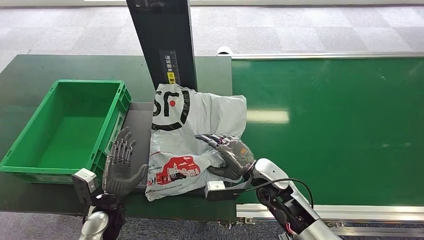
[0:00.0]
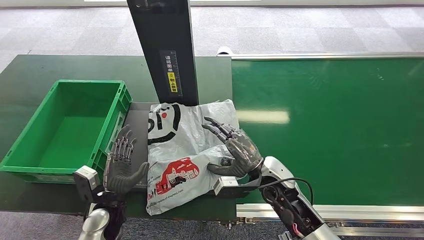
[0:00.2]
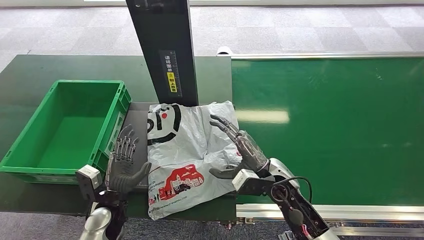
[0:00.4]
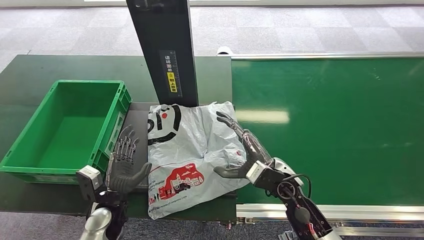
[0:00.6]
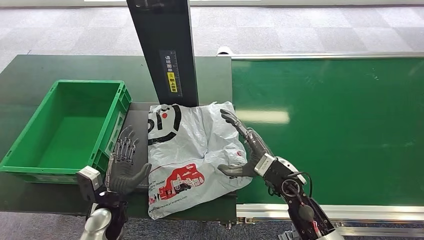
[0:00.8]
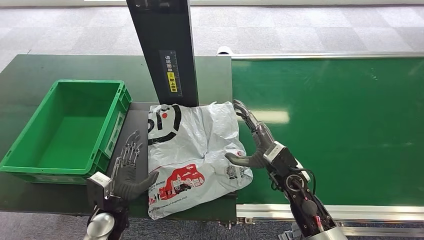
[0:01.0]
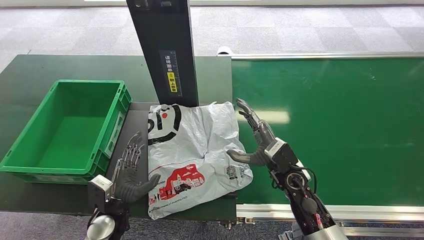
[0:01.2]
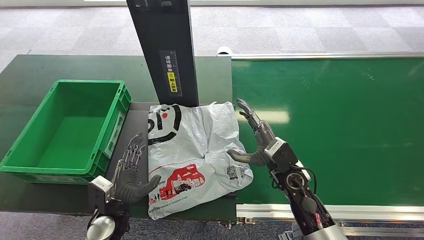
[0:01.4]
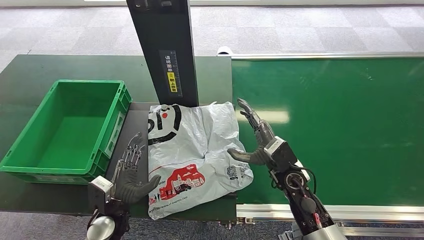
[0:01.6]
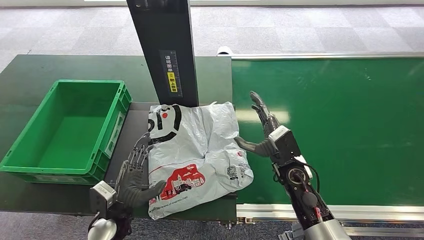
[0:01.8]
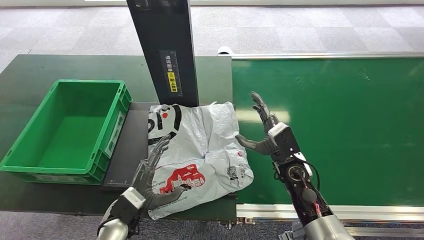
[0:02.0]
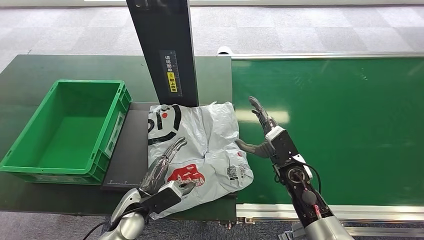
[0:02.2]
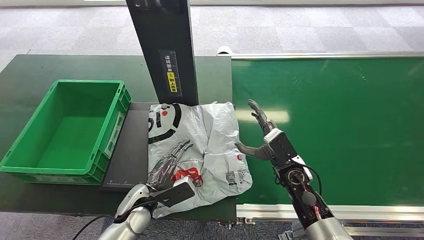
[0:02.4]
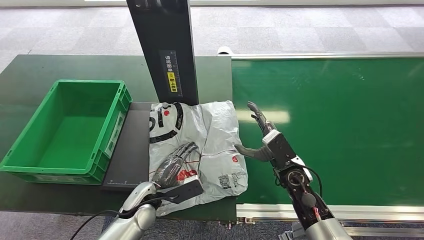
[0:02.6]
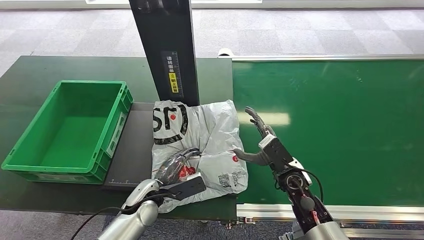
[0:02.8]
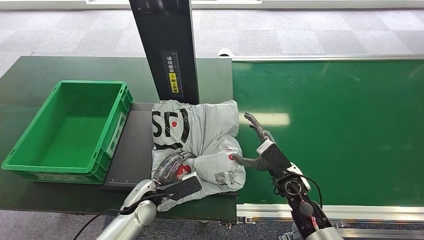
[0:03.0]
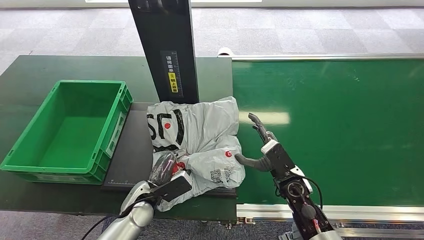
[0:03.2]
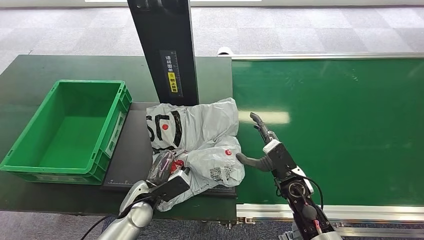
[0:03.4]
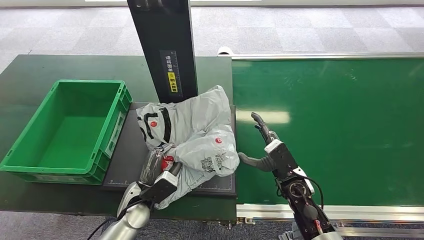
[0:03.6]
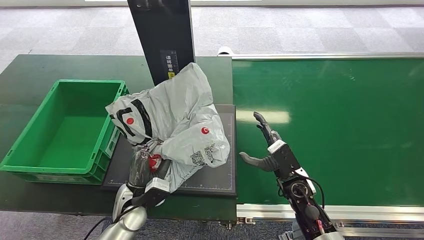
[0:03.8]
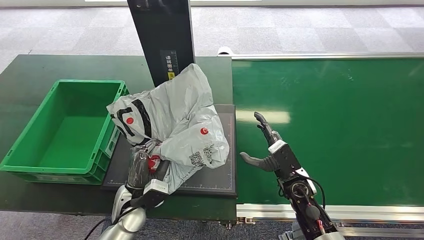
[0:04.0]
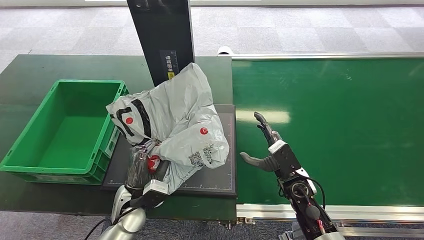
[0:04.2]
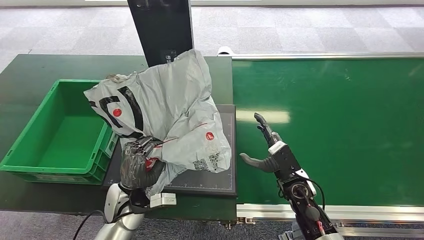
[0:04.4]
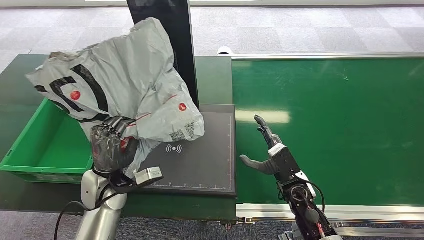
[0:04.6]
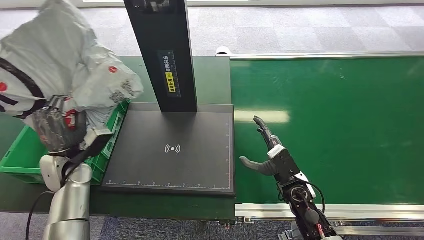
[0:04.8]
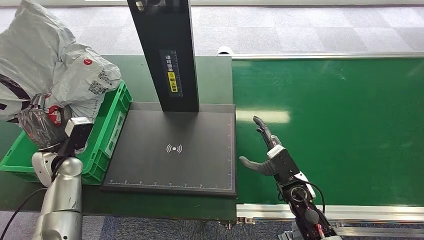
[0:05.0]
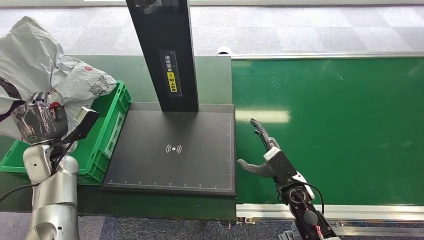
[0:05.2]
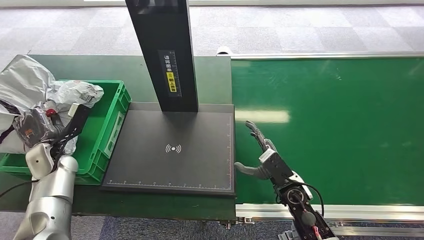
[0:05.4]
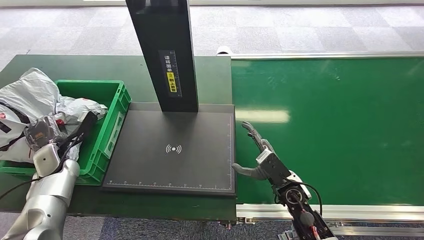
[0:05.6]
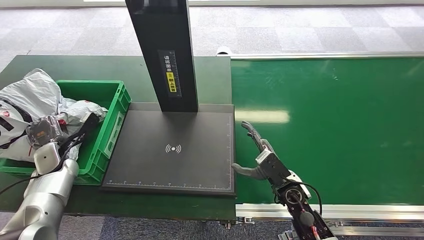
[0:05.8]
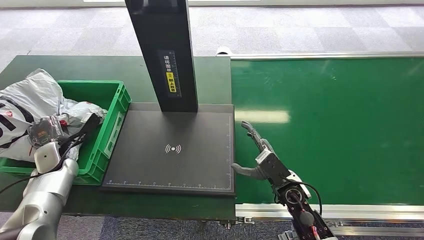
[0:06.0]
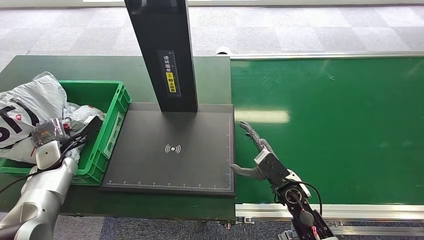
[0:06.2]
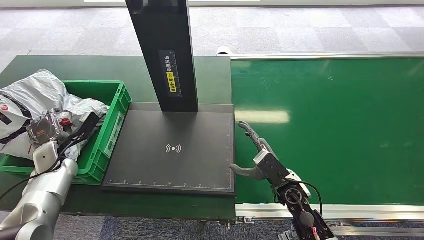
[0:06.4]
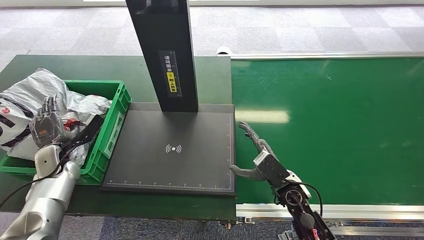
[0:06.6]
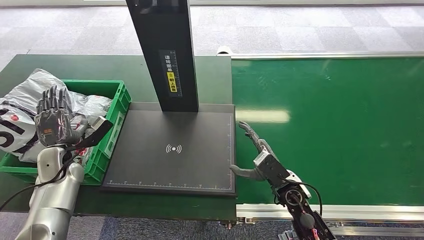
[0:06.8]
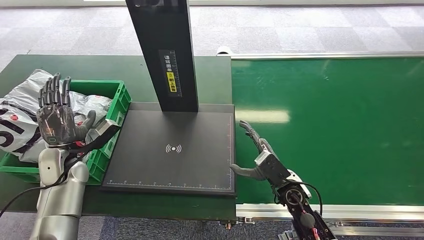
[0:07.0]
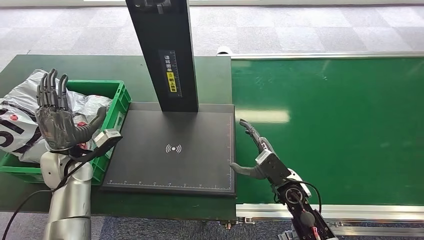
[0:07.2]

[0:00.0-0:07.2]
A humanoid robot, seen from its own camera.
Step, 0:01.0 to 0:04.6: Pick up the package from the inbound machine.
Step, 0:04.8 to 0:07.2: Place the package into the parcel locker.
0:01.4 to 0:02.8: The left hand is displaced to the right and forward by approximately 10 cm.
0:05.8 to 0:07.2: The left hand moves to the right and upward, some 10 cm.

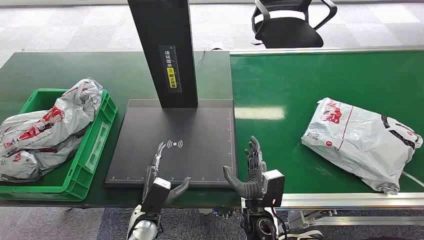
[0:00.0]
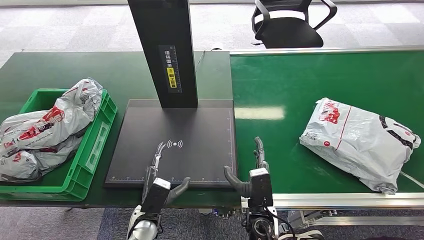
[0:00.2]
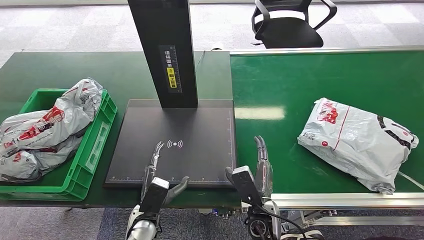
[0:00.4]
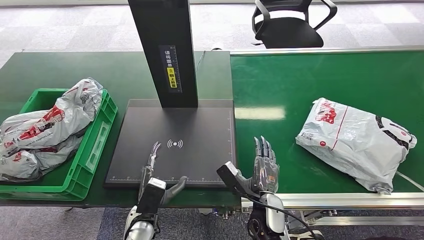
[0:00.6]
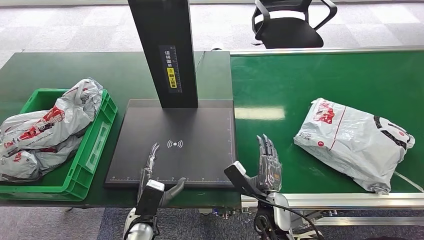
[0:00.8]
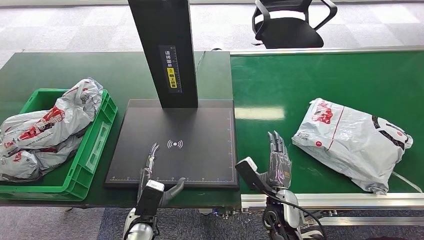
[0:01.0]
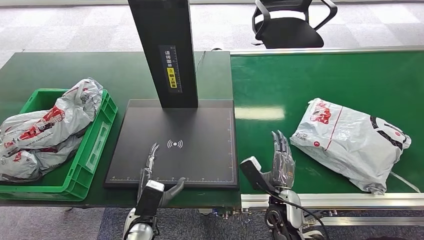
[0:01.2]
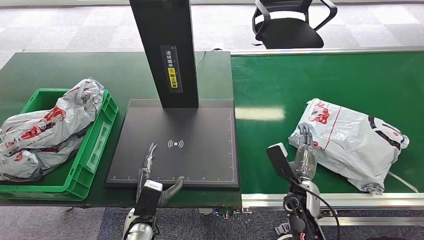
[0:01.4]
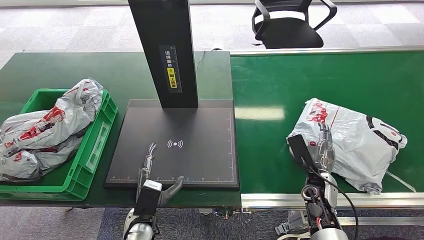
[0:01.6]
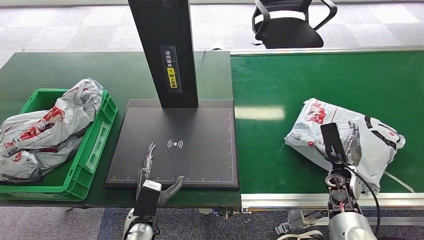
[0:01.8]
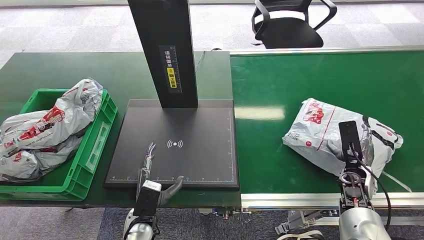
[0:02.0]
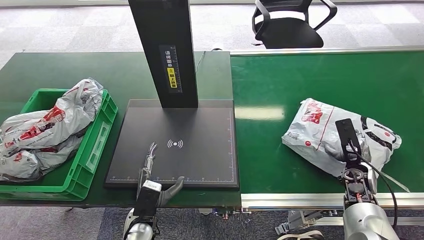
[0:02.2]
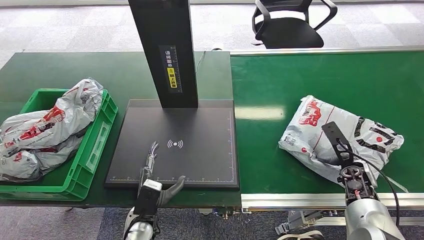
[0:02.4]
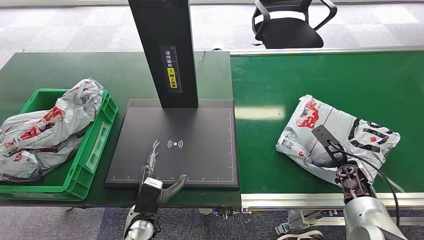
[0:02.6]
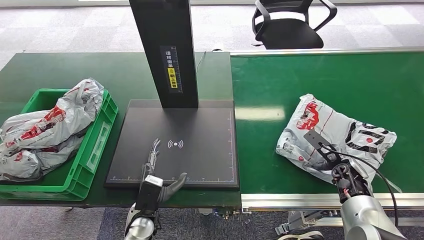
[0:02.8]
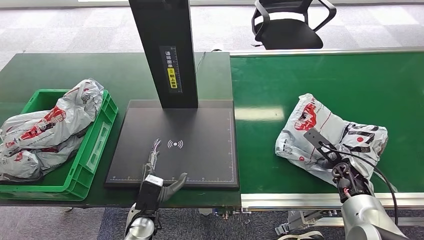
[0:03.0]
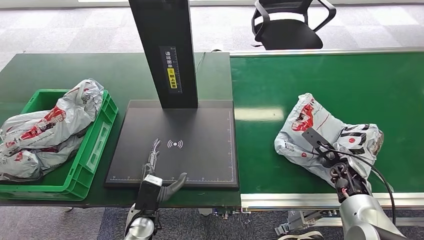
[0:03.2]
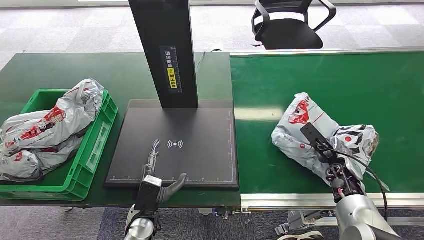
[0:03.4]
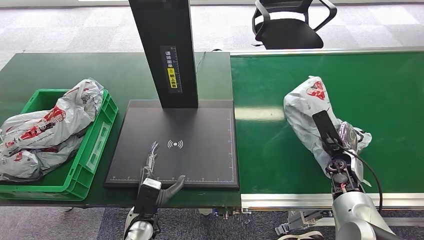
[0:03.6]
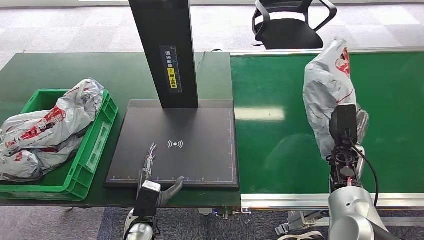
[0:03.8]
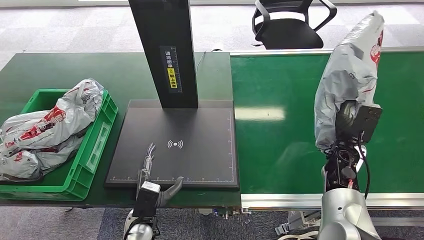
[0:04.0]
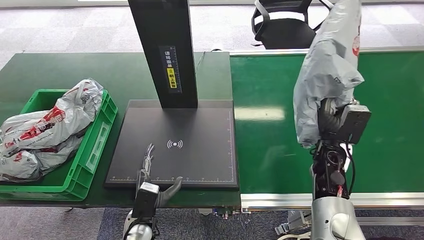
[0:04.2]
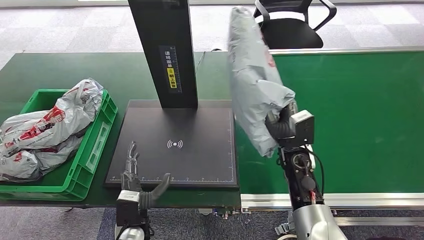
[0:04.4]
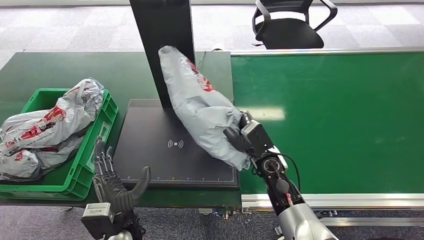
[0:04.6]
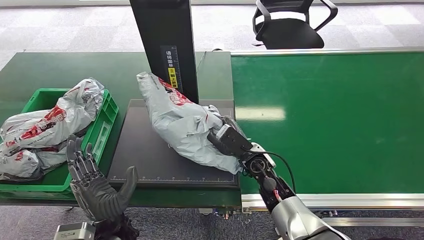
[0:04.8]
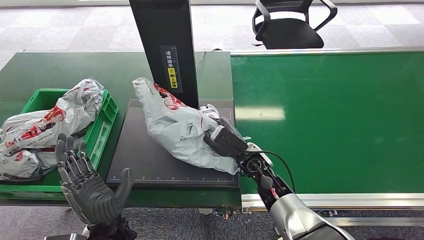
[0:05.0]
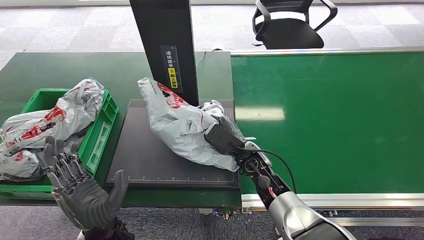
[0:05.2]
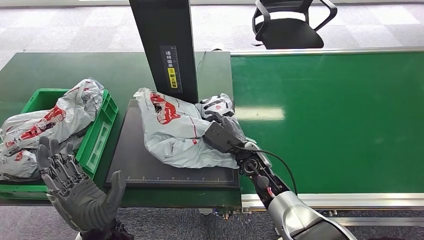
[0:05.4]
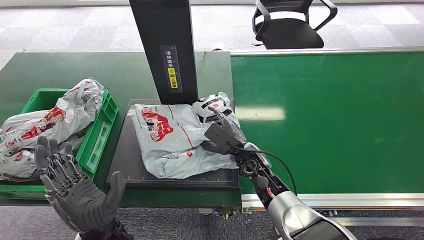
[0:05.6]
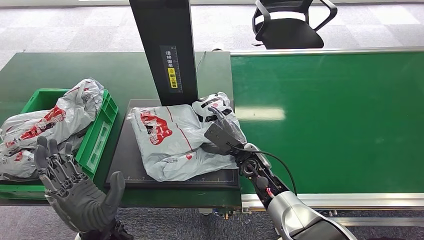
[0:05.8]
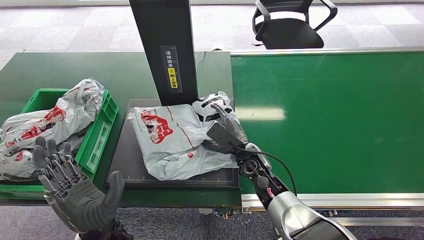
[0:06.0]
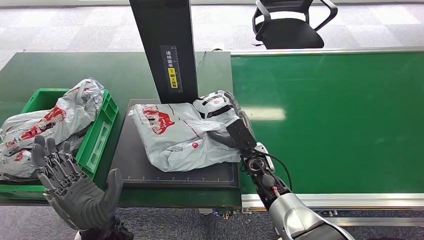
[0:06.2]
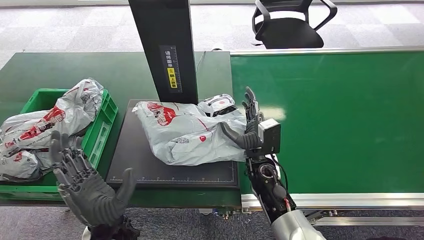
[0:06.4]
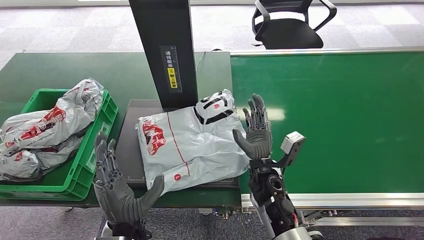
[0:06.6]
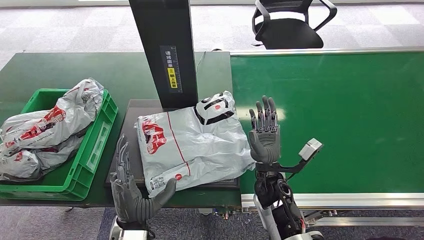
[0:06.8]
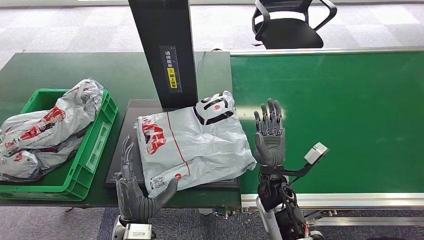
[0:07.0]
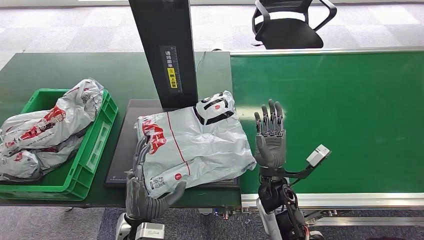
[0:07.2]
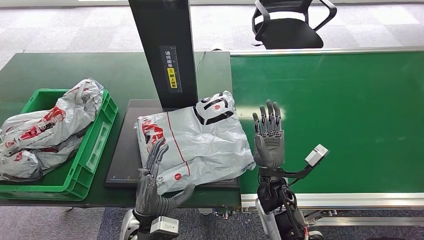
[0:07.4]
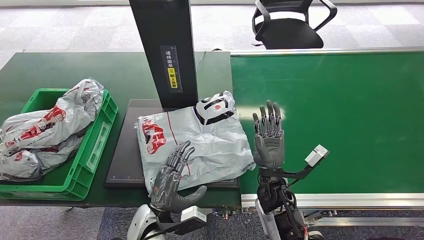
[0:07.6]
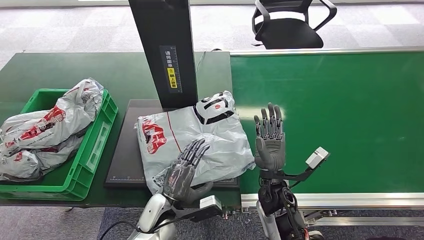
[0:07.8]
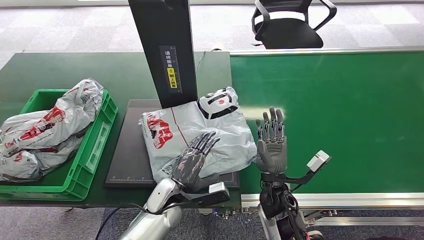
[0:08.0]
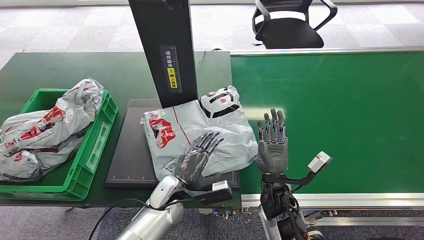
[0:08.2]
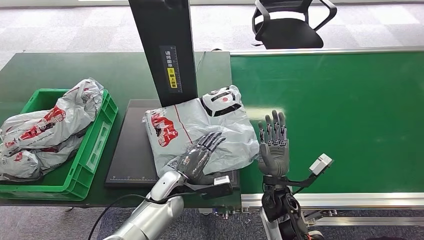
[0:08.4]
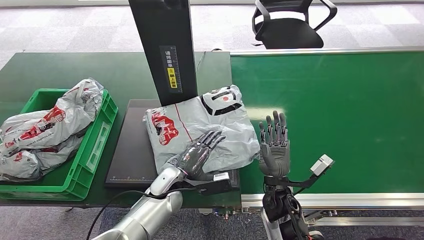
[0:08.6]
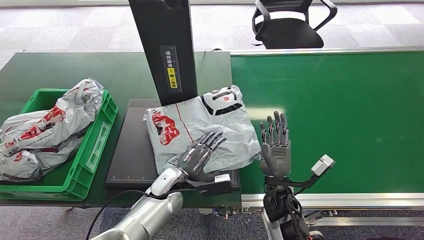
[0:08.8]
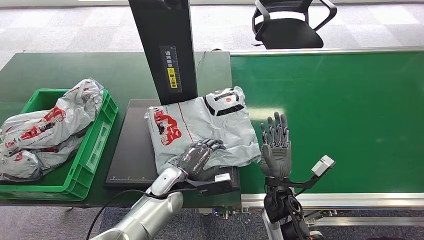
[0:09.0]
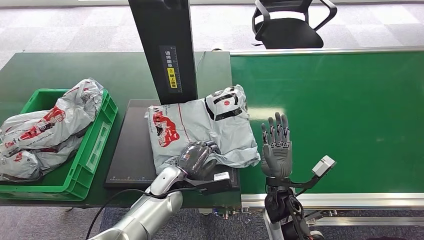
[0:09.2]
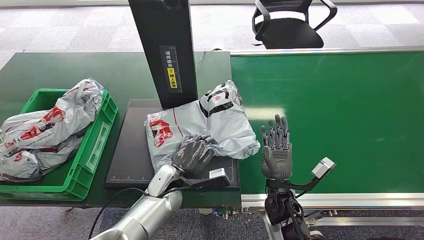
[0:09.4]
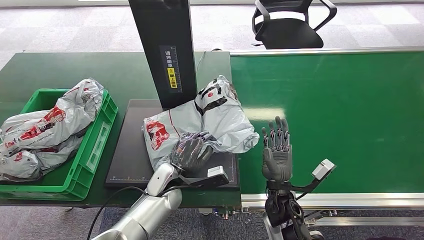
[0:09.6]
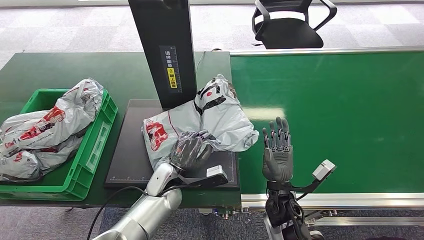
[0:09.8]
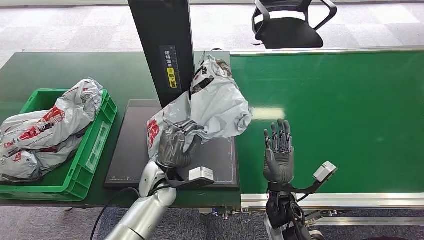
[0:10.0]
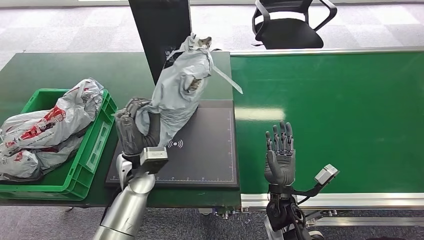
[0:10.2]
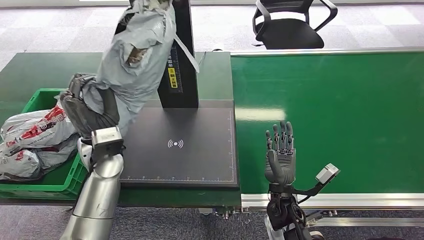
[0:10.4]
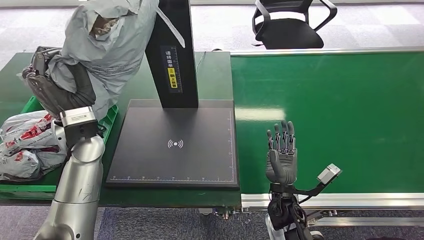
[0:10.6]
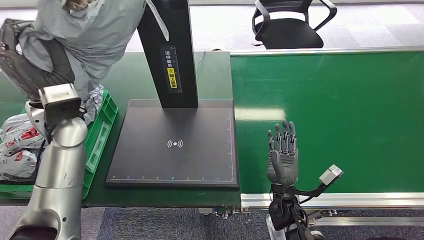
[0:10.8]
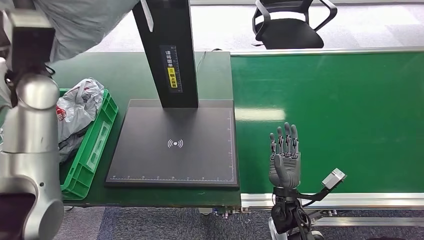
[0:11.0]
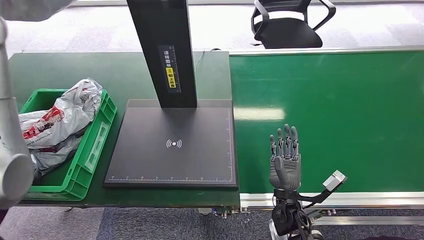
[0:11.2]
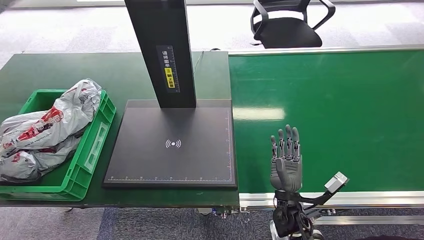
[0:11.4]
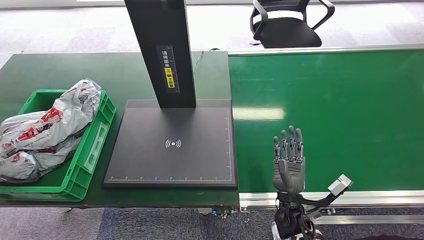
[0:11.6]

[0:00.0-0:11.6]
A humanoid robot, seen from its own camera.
Step, 0:00.0 to 0:03.8: Pick up the package from the conveyor belt.
Step, 0:04.2 to 0:06.6: Place the package onto the inbound machine.
Step, 0:06.8 to 0:10.2: Pick up the package from the inbound machine.
0:01.4 to 0:02.8: The right hand is displaced to the right and forward by roughly 15 cm.
0:05.8 to 0:07.2: The right hand is displaced backward by about 5 cm. Meanwhile the left hand is displaced downward by approximately 10 cm.
0:07.2 to 0:08.8: The left hand travels forward by about 10 cm.
0:08.8 to 0:10.2: The left hand shifts some 10 cm upward.
